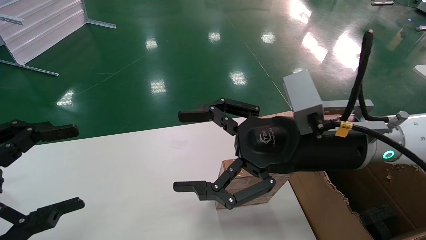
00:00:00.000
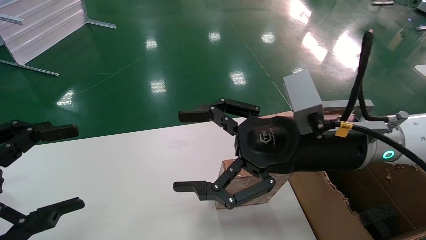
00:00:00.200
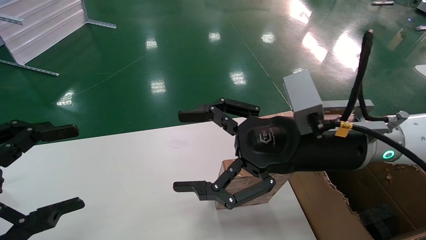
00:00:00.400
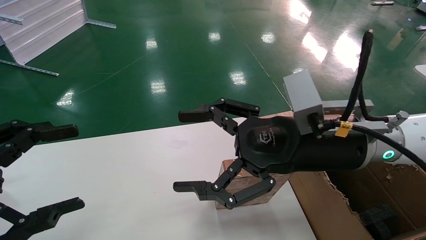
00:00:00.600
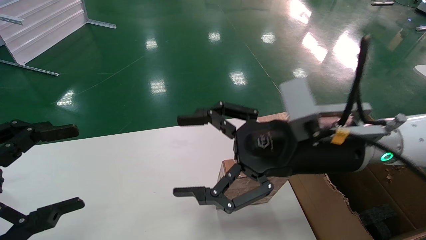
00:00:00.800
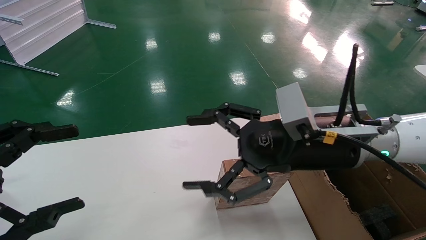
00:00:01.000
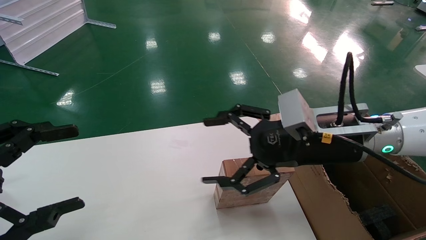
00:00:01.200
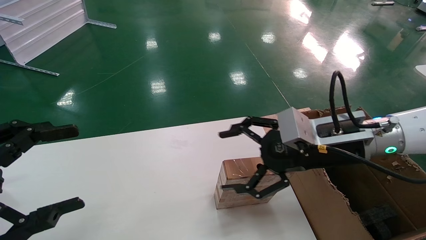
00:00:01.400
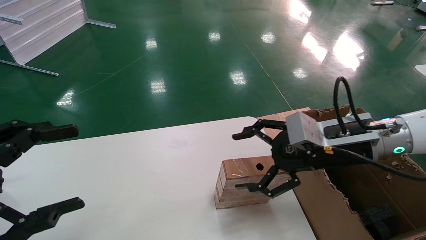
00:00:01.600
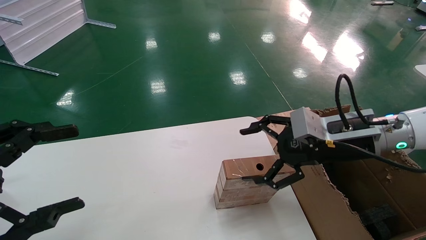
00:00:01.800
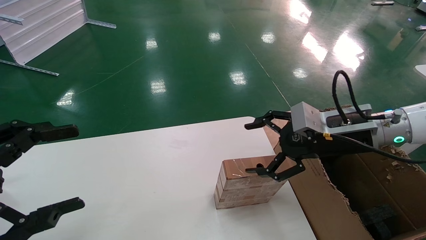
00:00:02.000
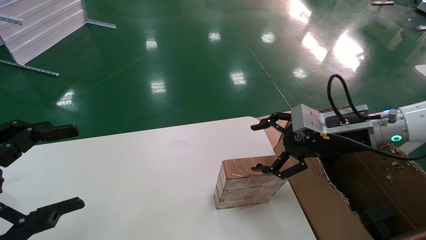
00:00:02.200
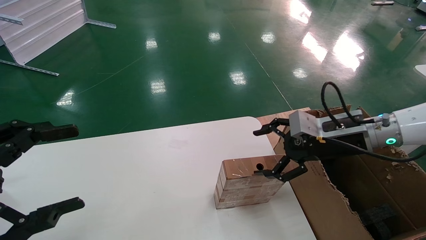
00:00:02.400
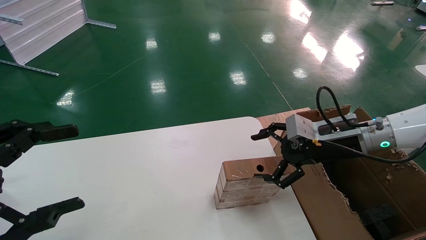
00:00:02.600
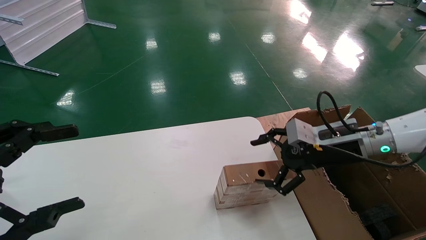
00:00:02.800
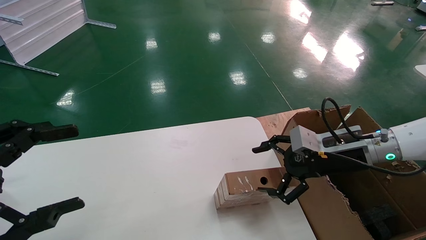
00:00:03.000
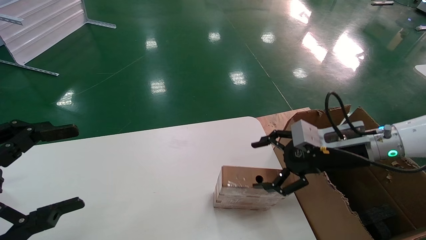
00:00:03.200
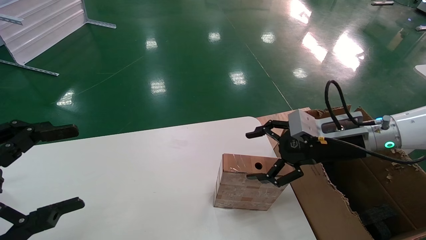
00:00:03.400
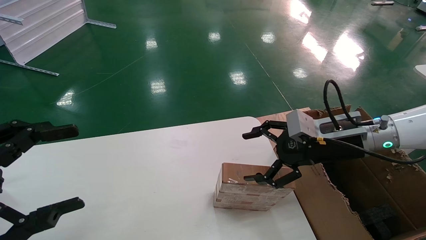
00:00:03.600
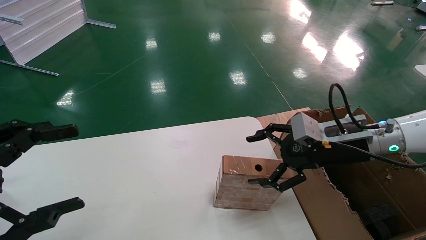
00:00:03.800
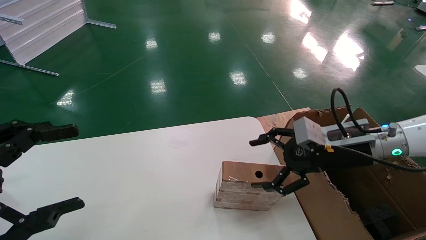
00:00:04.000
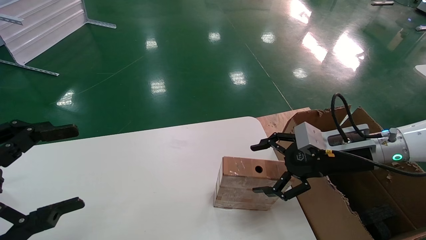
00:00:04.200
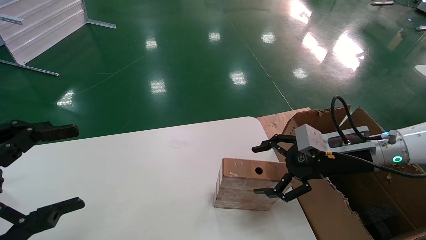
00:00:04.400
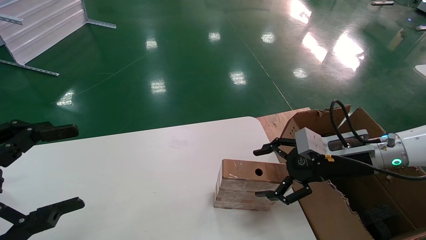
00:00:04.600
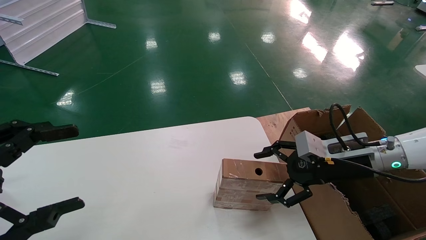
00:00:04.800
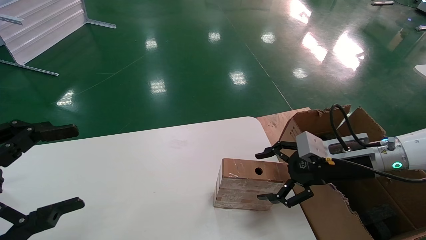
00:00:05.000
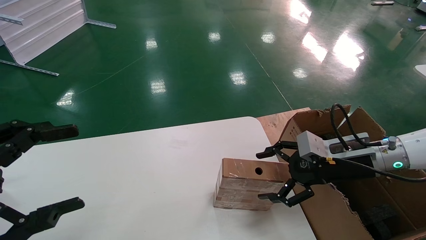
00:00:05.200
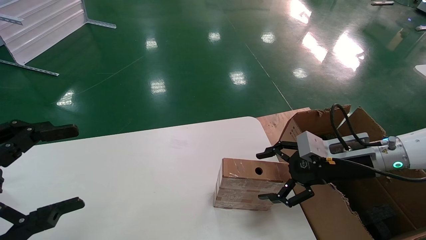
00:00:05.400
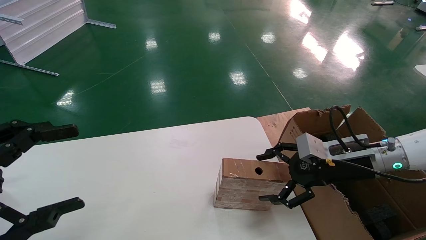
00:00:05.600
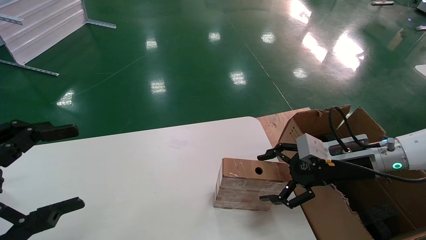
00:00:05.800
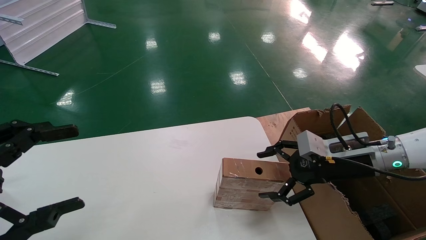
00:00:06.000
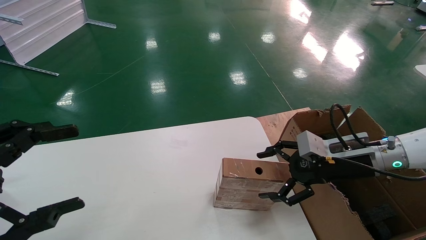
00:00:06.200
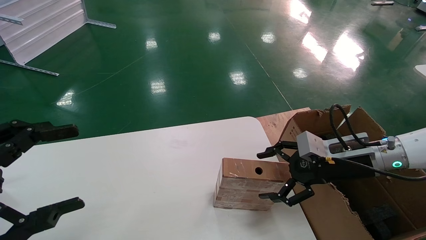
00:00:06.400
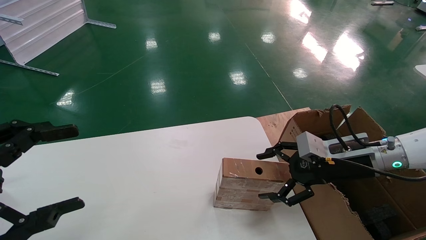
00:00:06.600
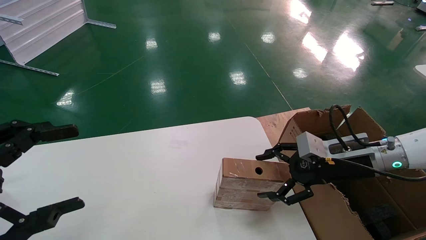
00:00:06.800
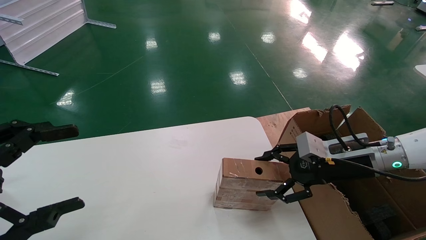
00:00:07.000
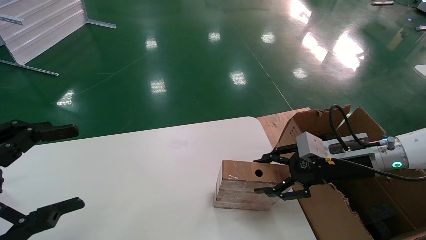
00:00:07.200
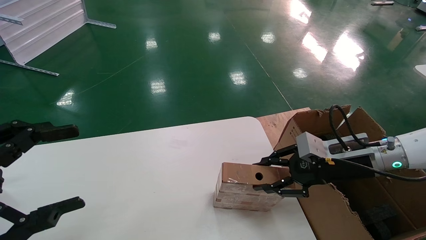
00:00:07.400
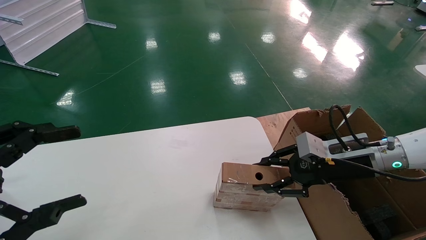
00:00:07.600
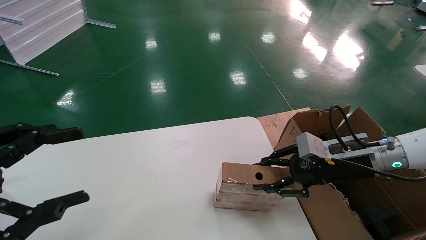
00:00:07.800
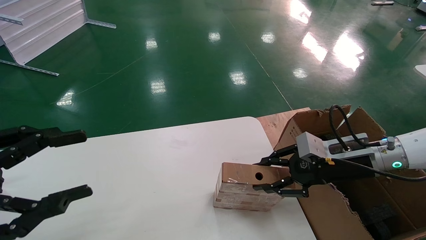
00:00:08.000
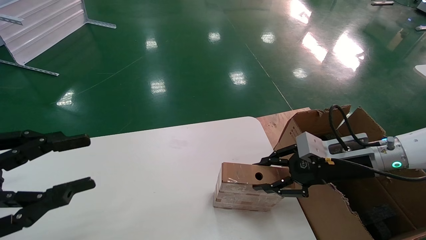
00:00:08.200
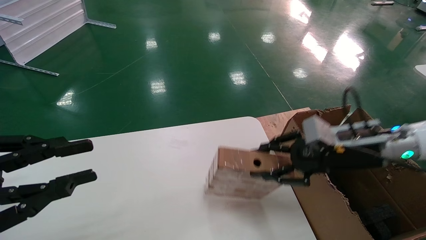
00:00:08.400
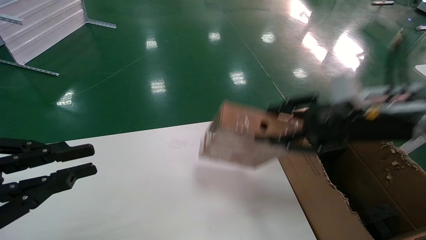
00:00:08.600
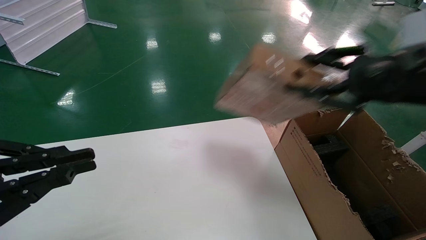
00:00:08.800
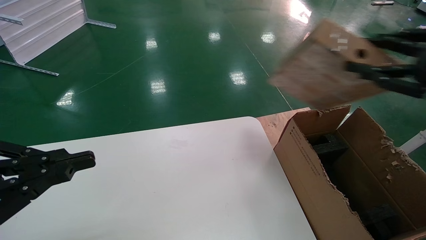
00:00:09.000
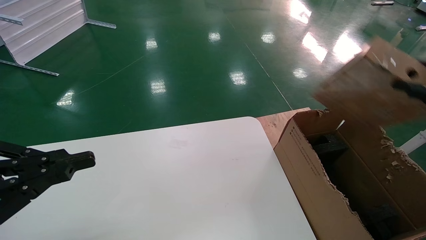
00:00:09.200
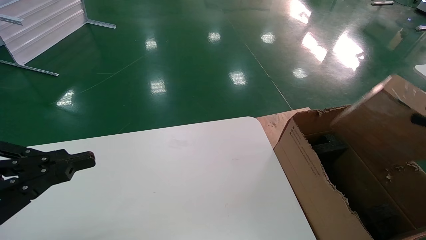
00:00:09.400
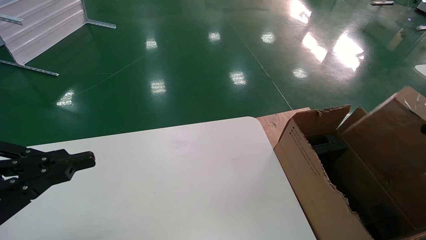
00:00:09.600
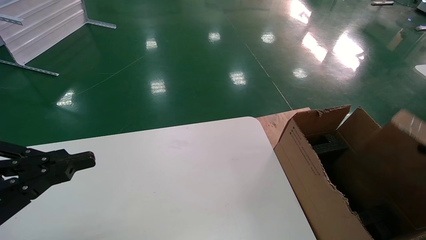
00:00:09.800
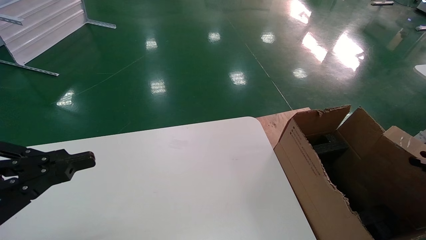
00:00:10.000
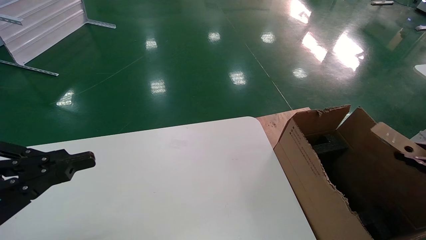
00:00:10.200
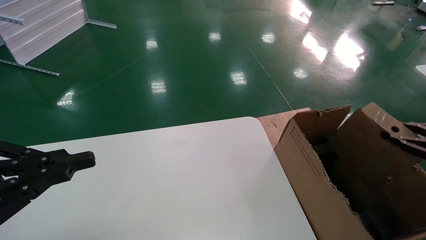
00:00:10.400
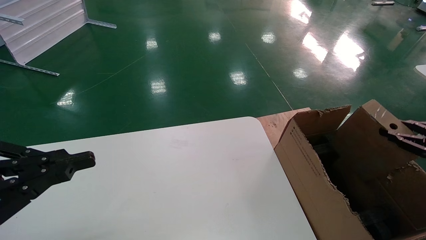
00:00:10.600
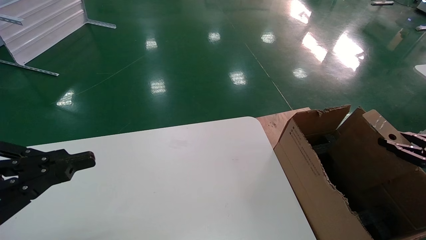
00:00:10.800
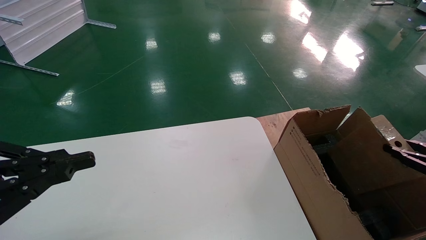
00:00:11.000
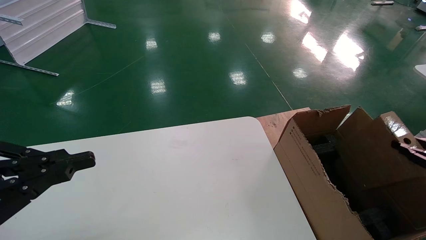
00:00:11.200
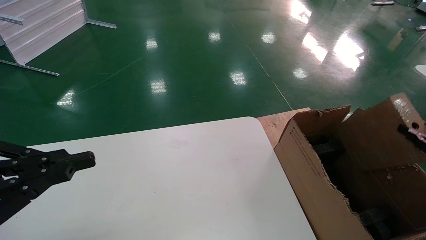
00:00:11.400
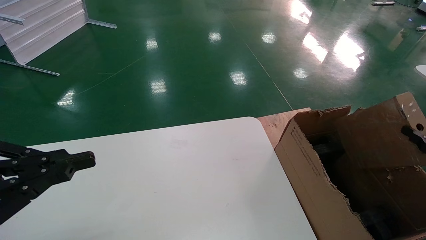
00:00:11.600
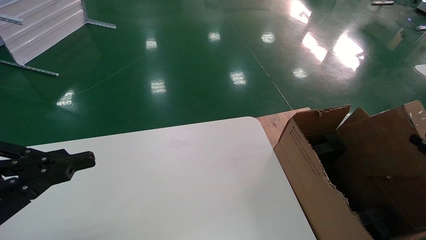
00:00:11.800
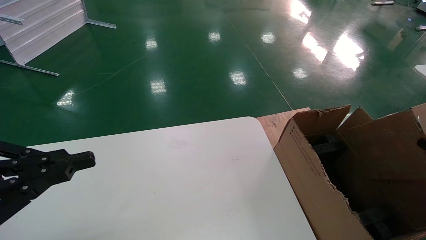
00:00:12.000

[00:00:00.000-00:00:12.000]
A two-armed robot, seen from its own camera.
Task of the whole recording: put the box on the table into the big box.
Step, 00:00:01.200 to 00:00:07.600: Pick up the mouse and the power cord paper box.
00:00:00.000 to 00:00:01.600: The right gripper shifts about 10 cm to the right.
00:00:01.600 to 00:00:03.000: The right gripper shifts by about 5 cm.
00:00:03.000 to 00:00:06.000: The grippers stay close to where they were, moving slightly.
00:00:06.000 to 00:00:07.600: The right gripper closes its fingers.
00:00:07.600 to 00:00:09.000: The left gripper closes up. The right gripper goes roughly 25 cm upward, backward and to the right.
00:00:09.000 to 00:00:10.400: The right gripper goes roughly 20 cm downward and to the right.
00:00:10.400 to 00:00:12.000: The right gripper is displaced downward and backward by approximately 10 cm.

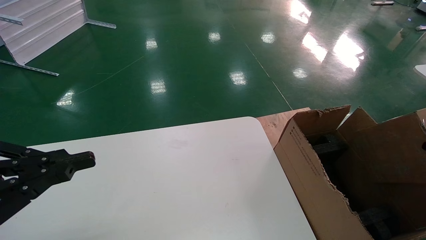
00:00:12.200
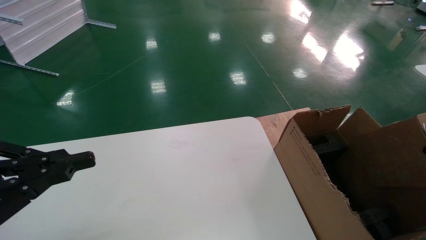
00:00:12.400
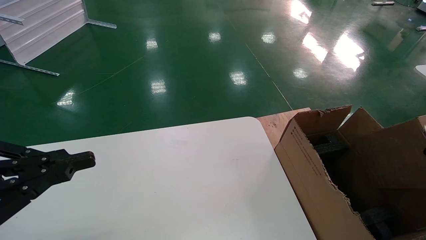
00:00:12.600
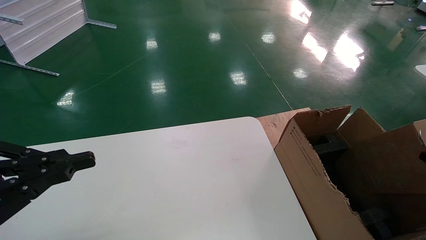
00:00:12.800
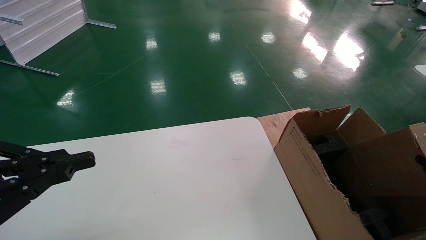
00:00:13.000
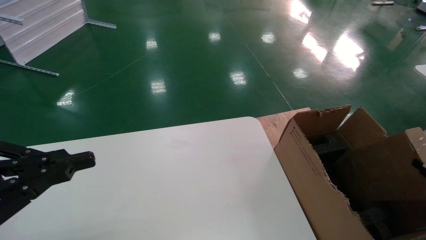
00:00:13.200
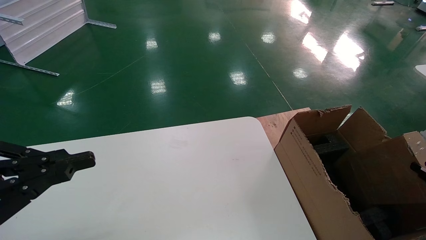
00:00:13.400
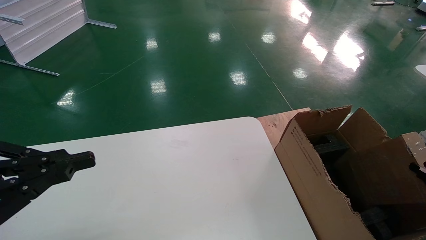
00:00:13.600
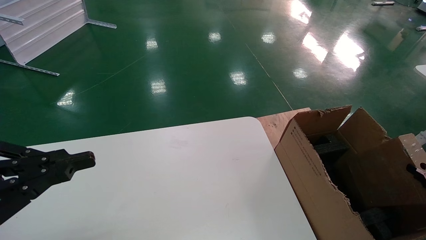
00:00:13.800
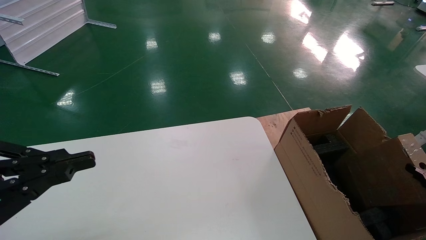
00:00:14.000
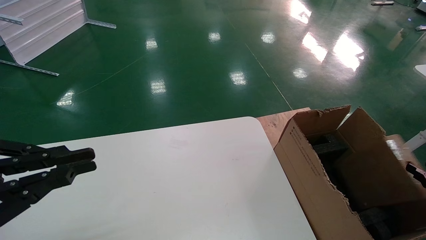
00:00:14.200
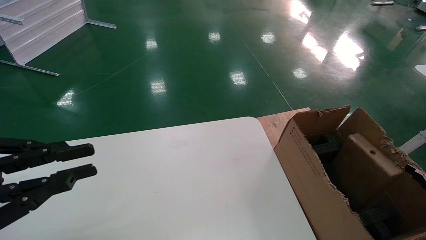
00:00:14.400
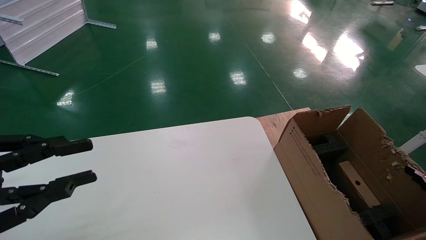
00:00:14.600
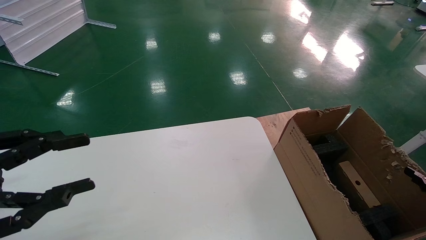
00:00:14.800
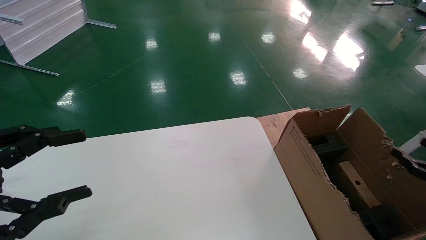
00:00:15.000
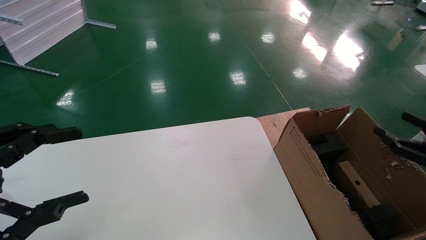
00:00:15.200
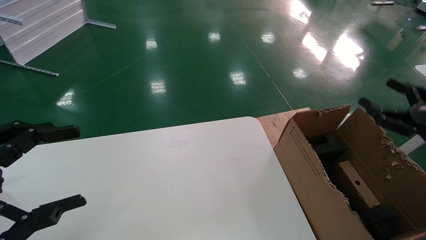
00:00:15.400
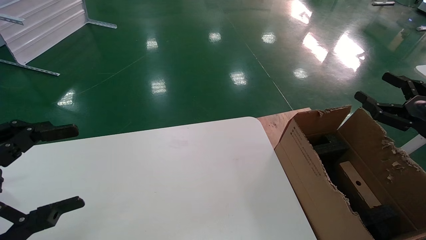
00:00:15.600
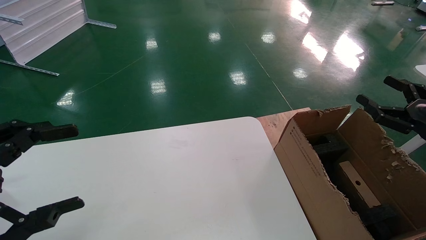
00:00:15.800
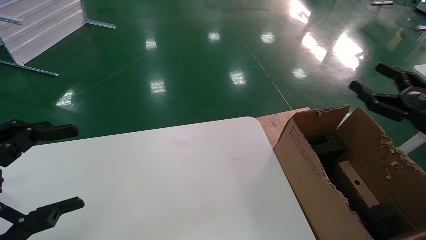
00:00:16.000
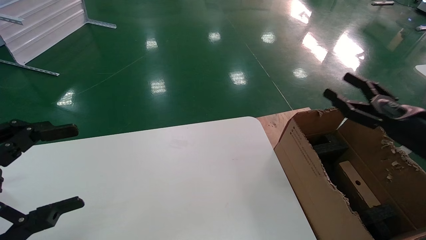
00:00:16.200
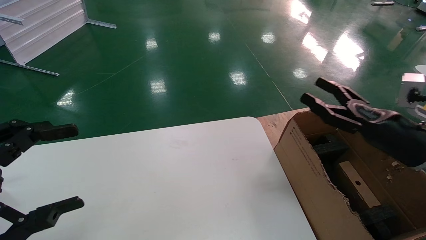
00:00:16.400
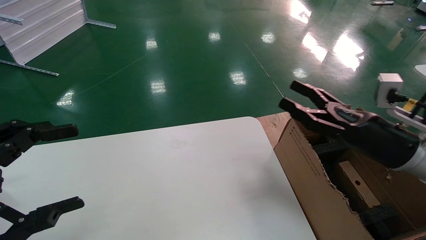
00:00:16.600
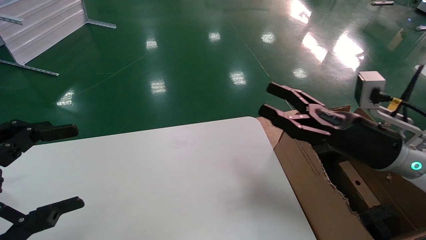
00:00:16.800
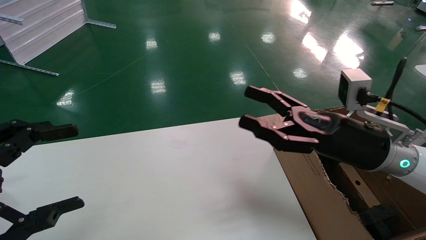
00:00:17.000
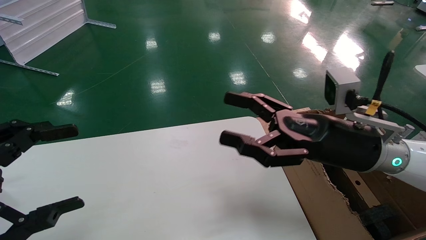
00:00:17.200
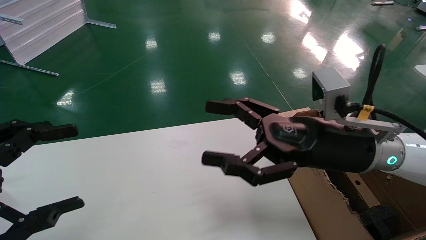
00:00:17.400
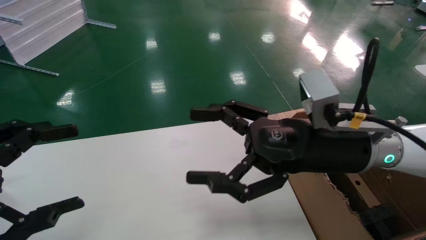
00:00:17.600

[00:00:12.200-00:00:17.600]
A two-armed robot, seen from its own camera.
Task of the whole recording: put the box on the table into the big box.
Step, 00:00:12.200 to 00:00:14.400: Place the mouse and the power cord paper box into the container.
00:00:12.200 to 00:00:13.600: The grippers move only a little.
00:00:13.600 to 00:00:15.000: The right gripper ends up roughly 5 cm from where it was, and opens up, while the left gripper opens.
00:00:15.000 to 00:00:16.200: The left gripper opens up. Meanwhile the right gripper goes about 15 cm to the left, forward and upward.
00:00:16.200 to 00:00:17.600: The right gripper moves to the left, about 25 cm.
